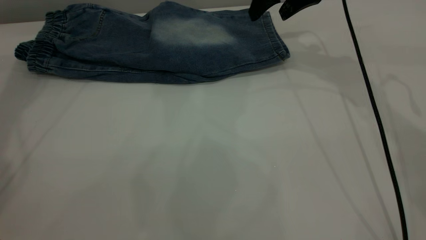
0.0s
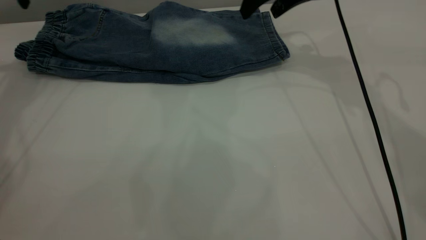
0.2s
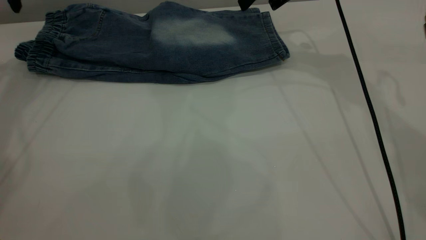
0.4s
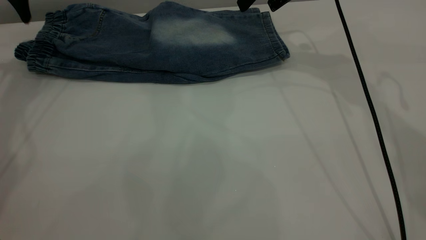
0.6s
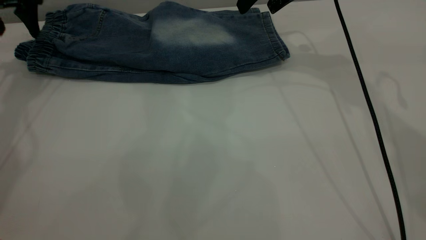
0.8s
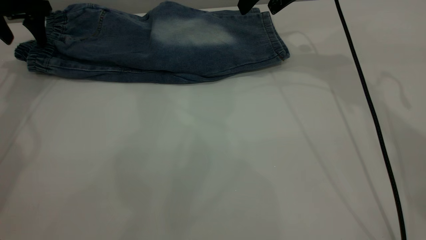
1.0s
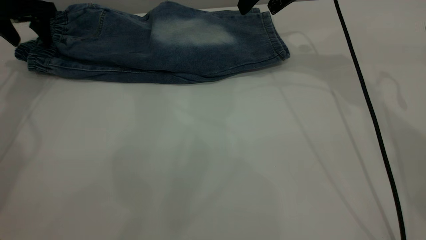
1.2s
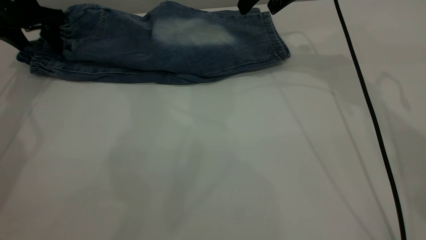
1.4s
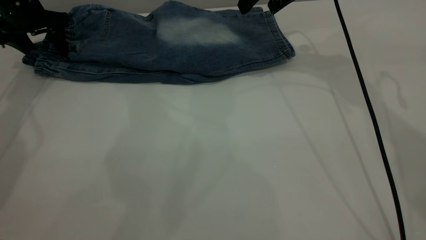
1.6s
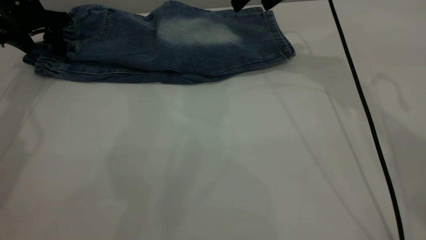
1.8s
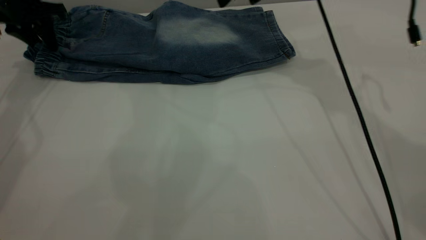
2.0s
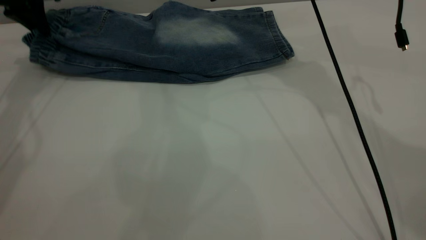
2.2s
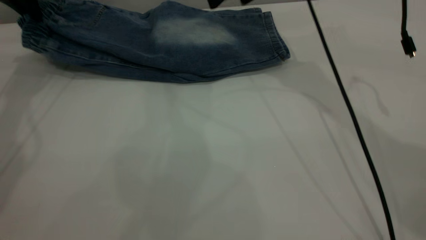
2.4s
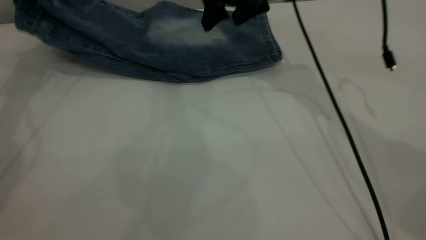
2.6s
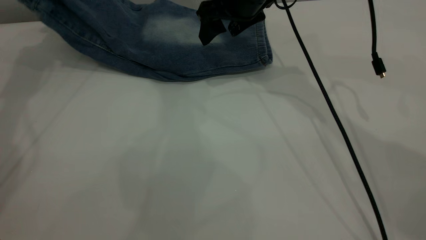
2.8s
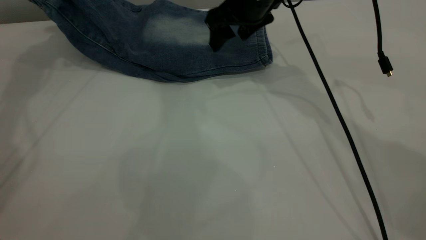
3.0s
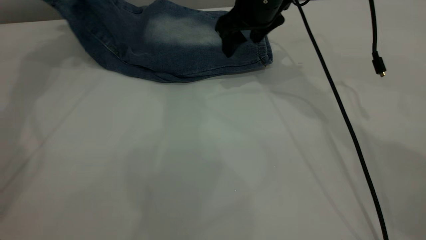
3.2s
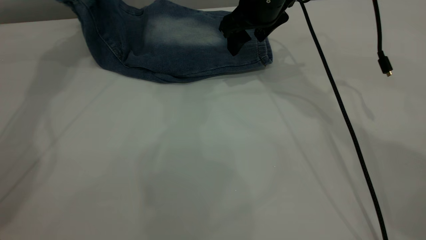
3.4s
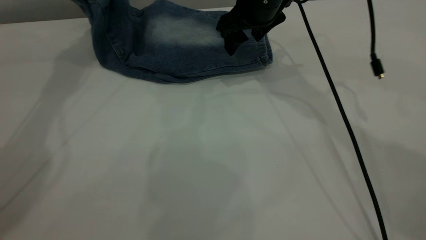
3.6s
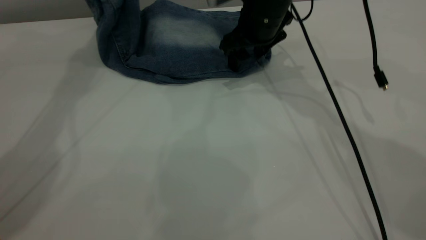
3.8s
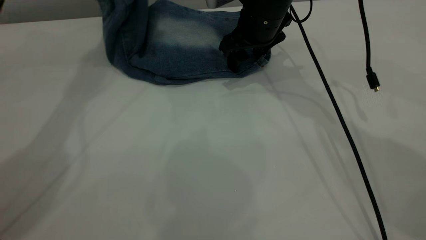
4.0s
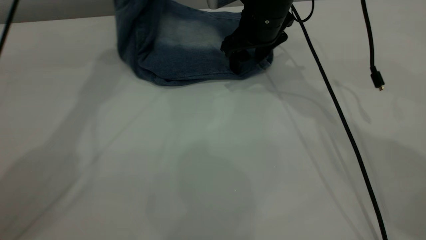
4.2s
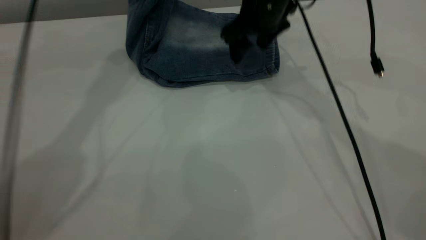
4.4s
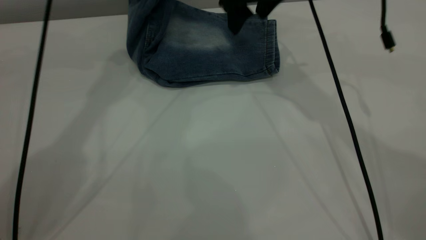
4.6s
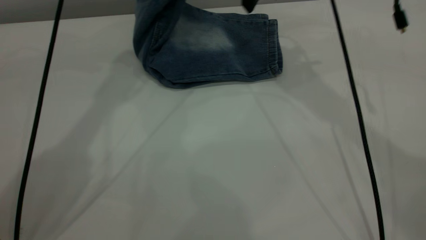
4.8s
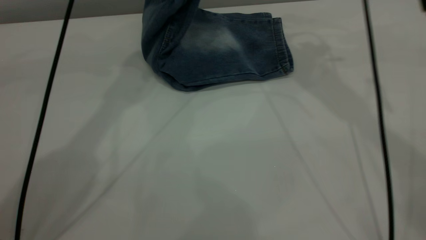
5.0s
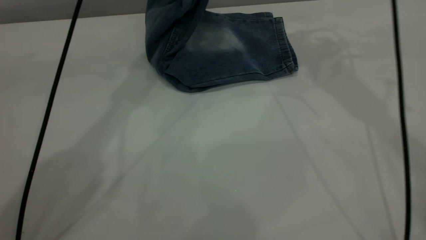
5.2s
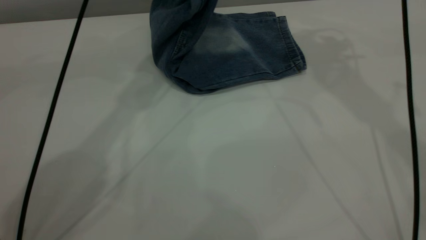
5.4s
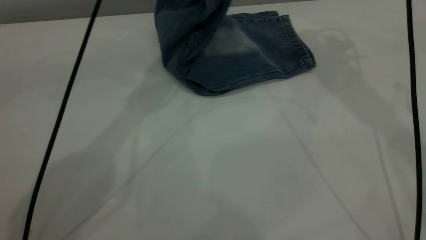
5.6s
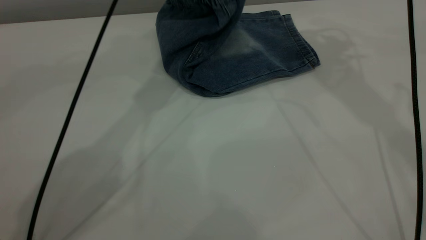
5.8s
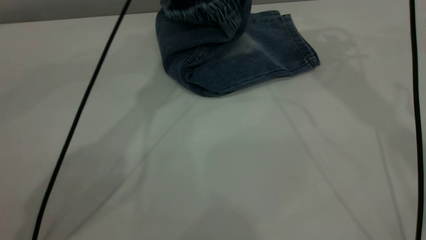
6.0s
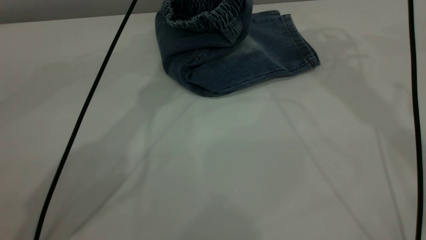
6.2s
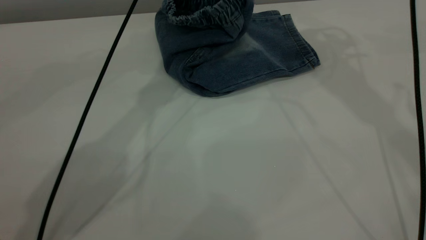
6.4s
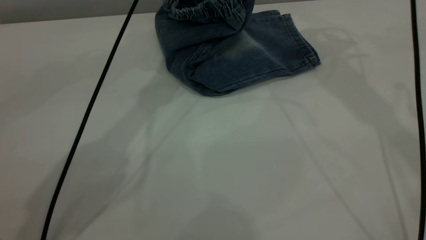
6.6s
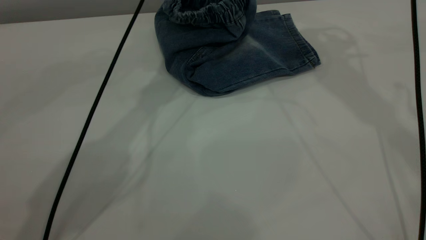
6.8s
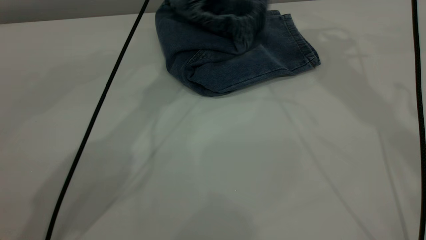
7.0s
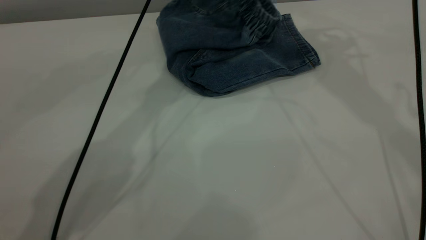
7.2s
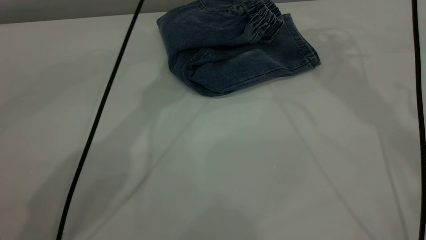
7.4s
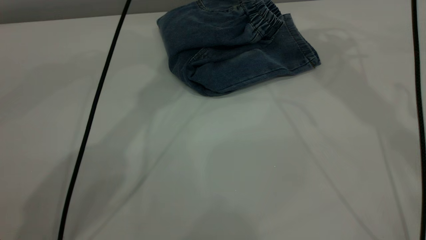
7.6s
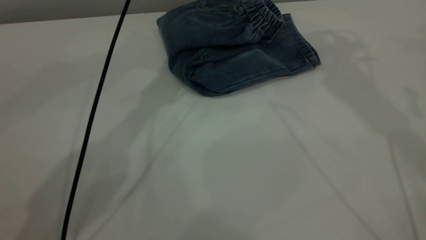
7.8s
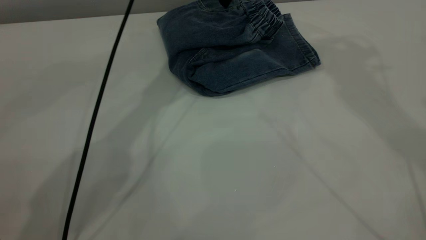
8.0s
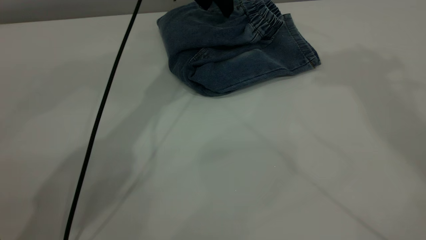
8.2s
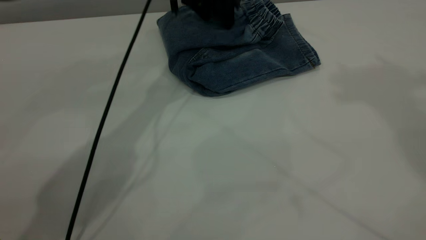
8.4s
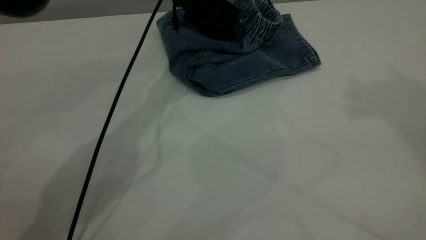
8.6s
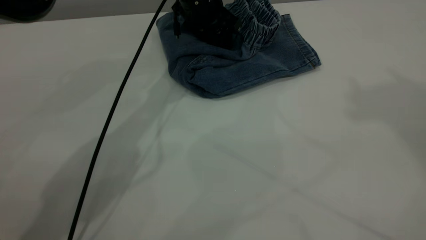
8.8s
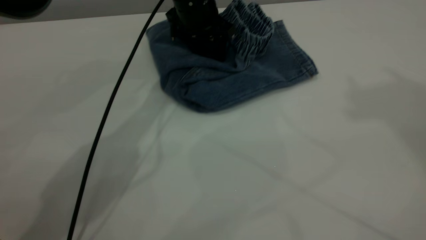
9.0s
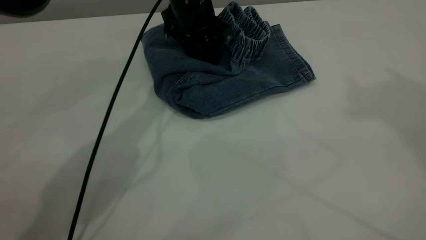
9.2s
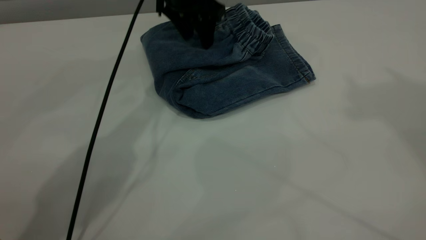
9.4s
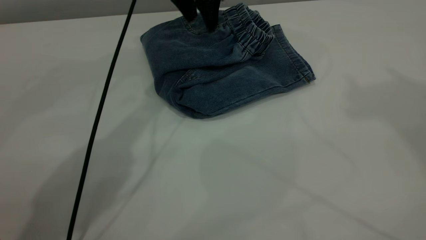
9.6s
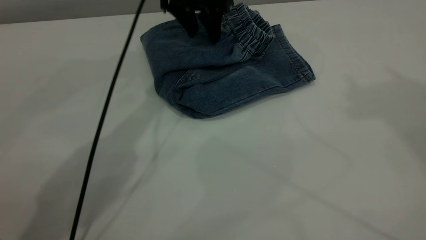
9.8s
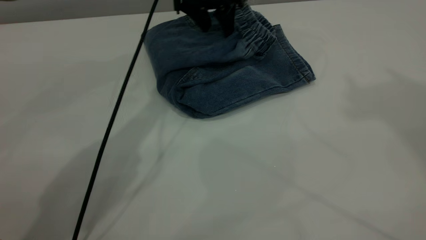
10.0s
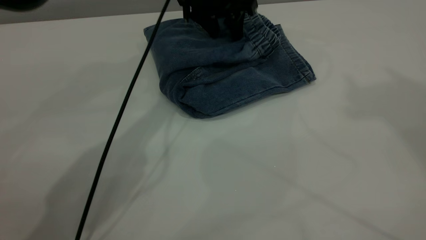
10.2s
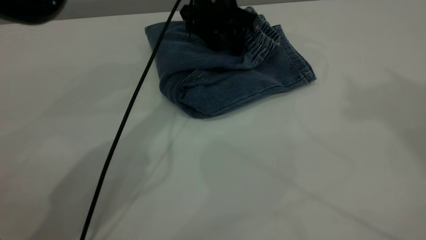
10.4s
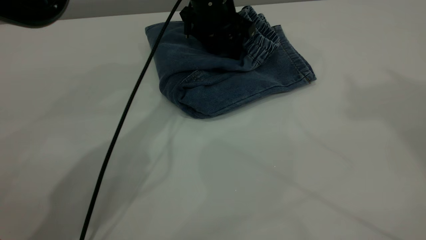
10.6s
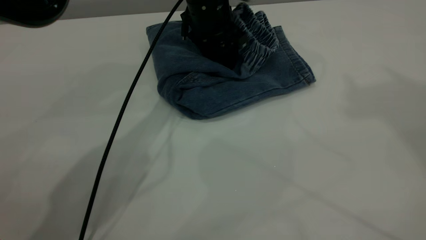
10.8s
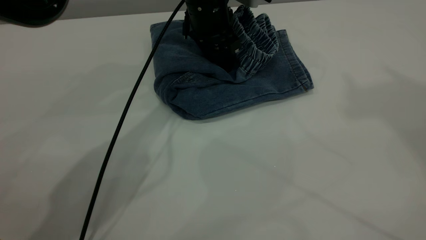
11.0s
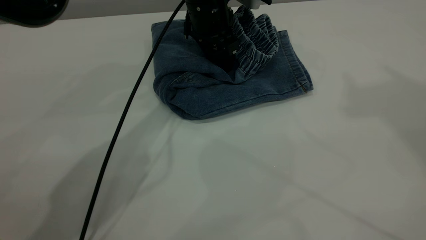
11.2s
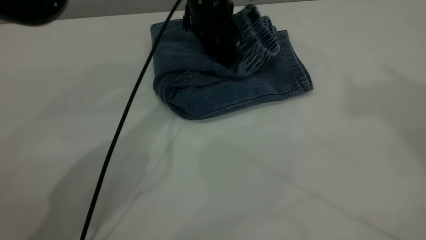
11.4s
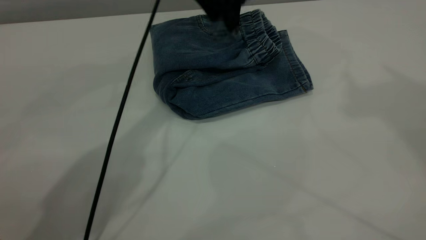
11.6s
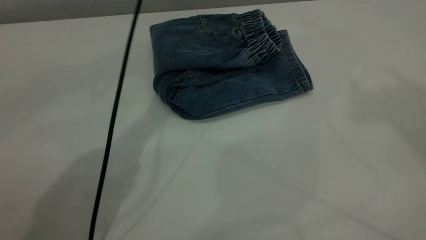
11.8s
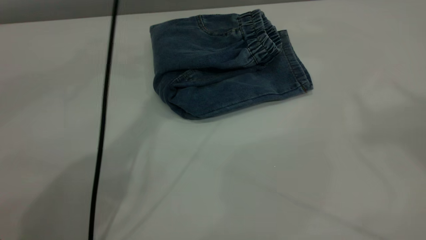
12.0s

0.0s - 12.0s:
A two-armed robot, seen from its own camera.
Step, 0.0s - 7.6s: Fold the pants from left to right.
0.0s - 1.6s: The left gripper moves downward, roughly 10 cm.
1.6s - 3.0s: The left gripper is displaced upward by approximately 15 cm, and closes. The right gripper moves to the left and downward, about 10 cm.
3.0s - 4.4s: The left gripper is displaced to the right by some 20 cm.
4.4s - 6.0s: The right gripper shifts approximately 20 cm upward and to the right; the left gripper is displaced to the right and downward by about 15 cm.
6.0s - 7.6s: The left gripper opens.
7.6s - 9.0s: The right gripper heads upward and backward, covering approximately 30 cm. Meanwhile the left gripper heads downward, covering roughly 10 cm.
10.4s - 12.0s: The left gripper shifts about 20 cm upward; the right gripper travels backward by about 5 cm.

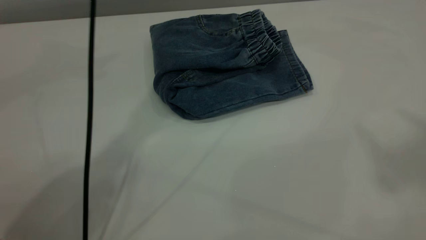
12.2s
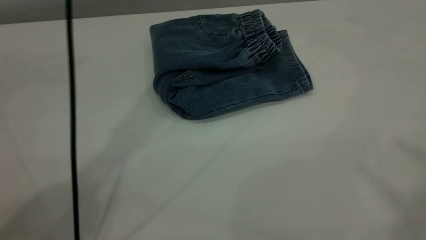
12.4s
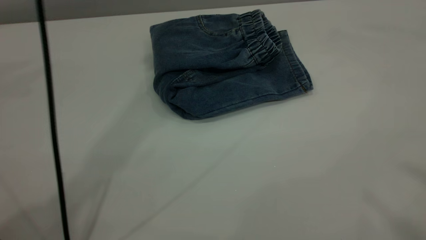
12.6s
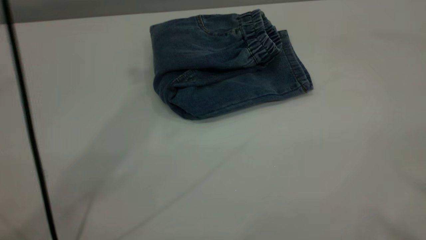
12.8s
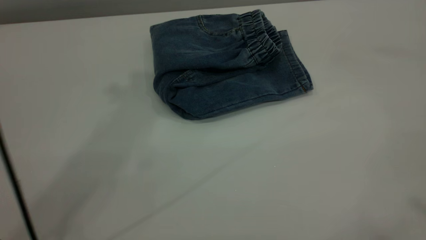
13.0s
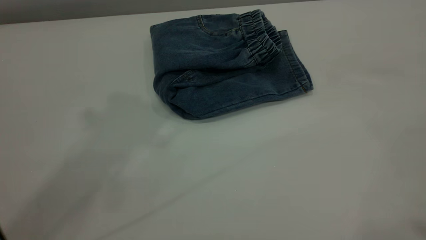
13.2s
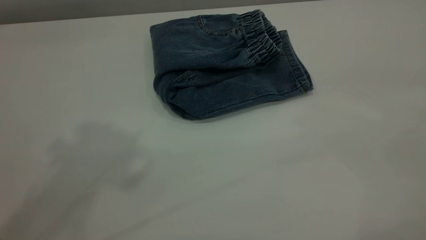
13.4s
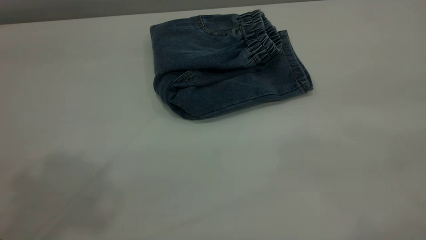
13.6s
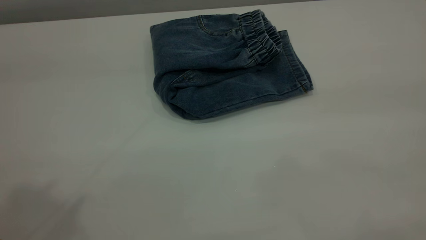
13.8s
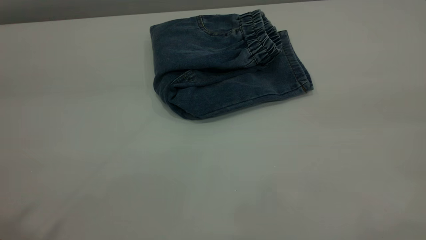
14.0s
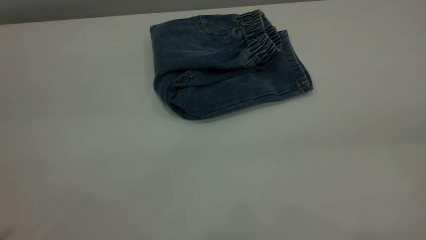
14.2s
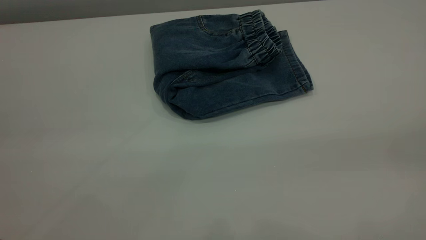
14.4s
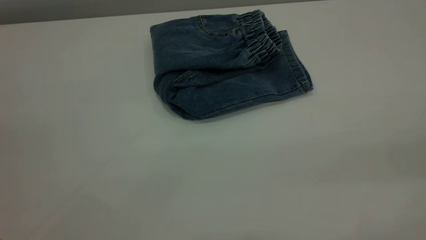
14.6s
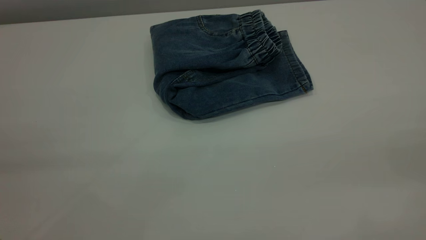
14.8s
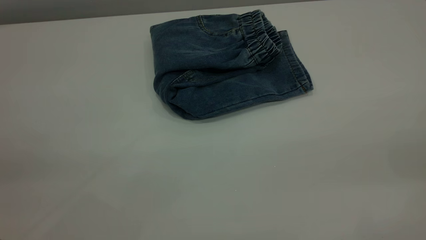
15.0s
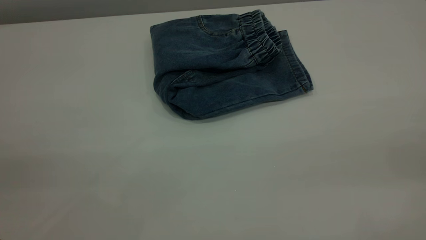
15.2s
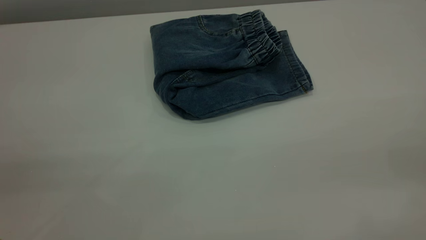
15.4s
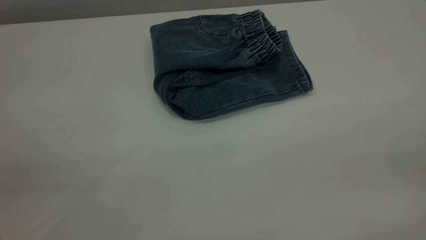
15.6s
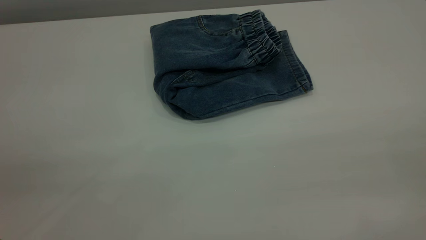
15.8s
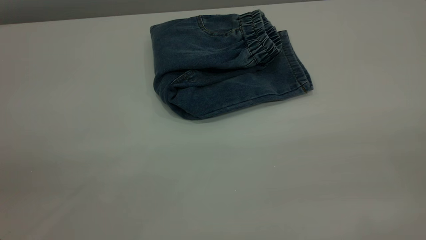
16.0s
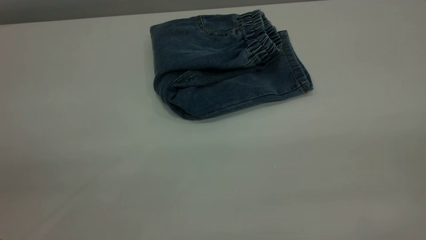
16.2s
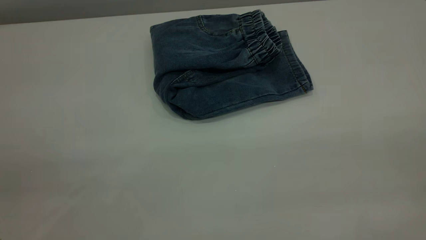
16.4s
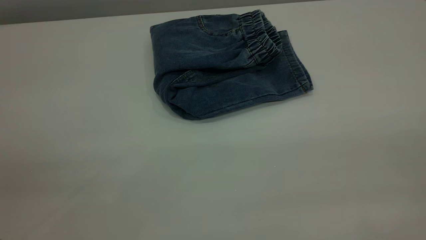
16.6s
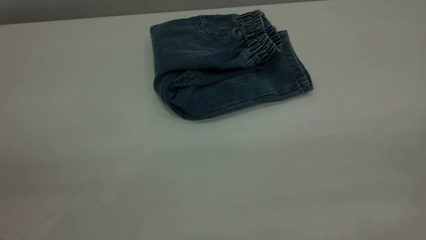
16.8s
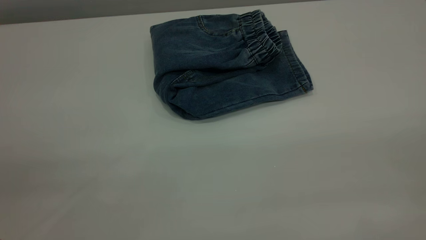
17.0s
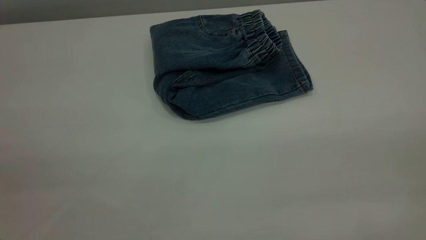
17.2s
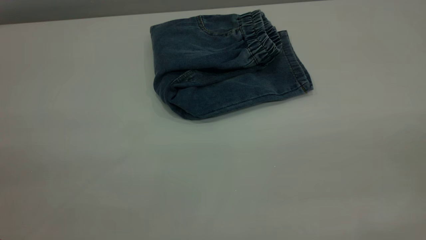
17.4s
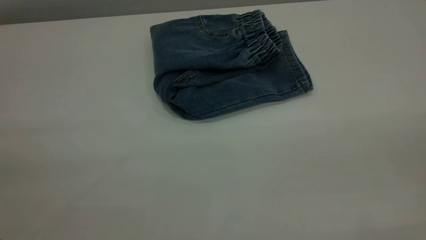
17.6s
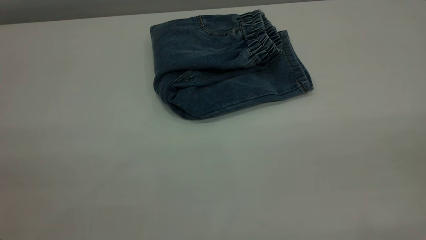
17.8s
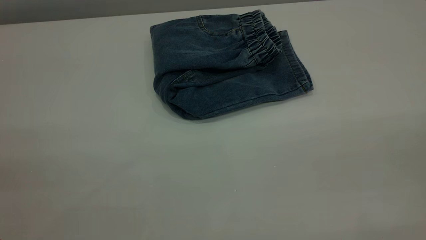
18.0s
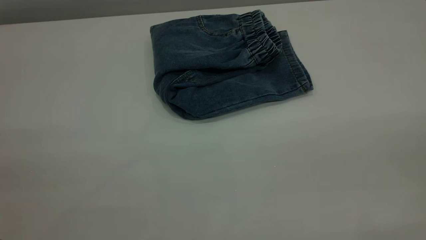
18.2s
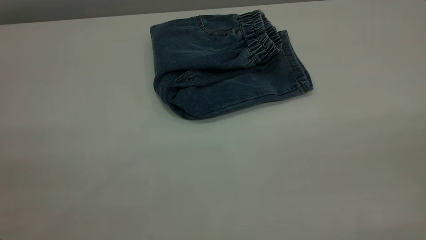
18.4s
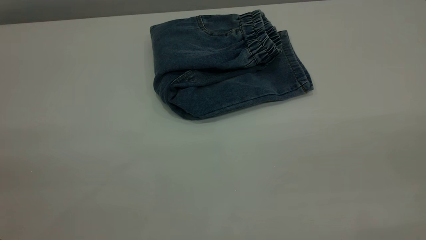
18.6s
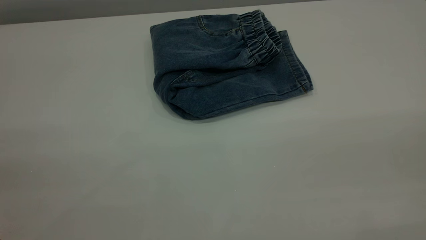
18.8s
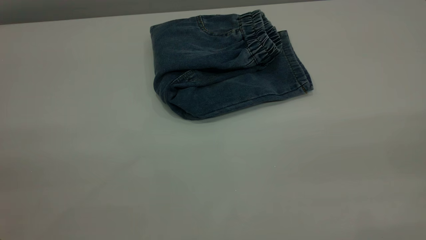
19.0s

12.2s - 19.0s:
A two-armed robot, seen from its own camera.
12.2s - 13.6s: The left gripper is displaced backward and to the left by about 30 cm.
